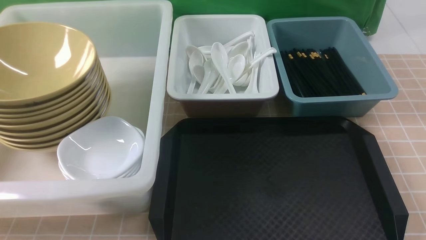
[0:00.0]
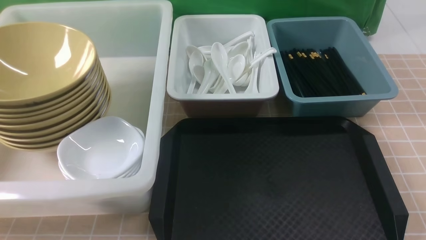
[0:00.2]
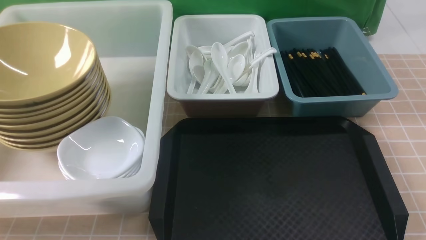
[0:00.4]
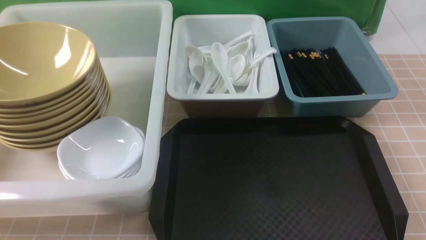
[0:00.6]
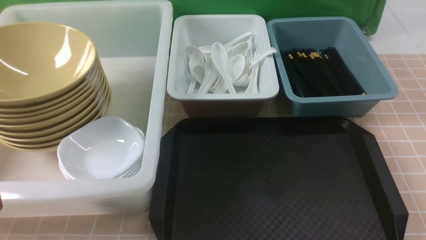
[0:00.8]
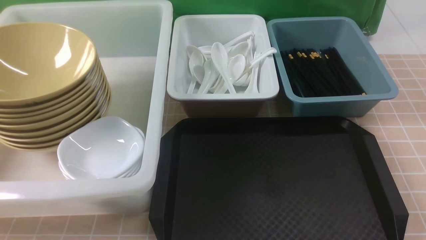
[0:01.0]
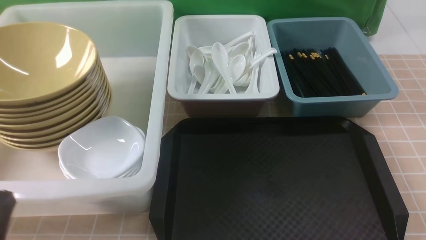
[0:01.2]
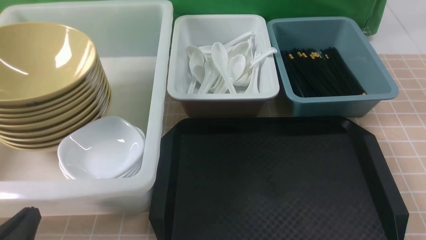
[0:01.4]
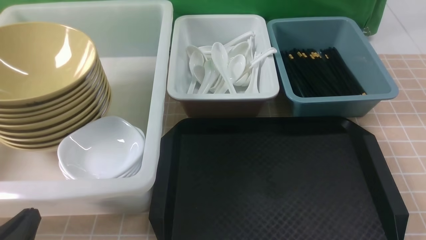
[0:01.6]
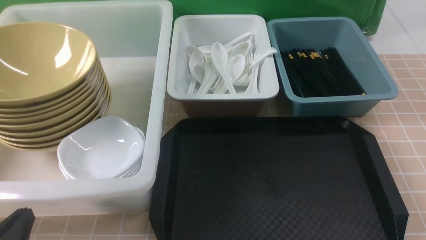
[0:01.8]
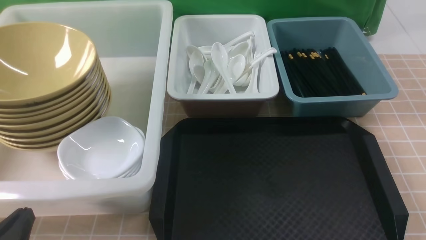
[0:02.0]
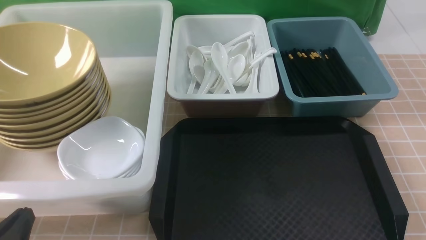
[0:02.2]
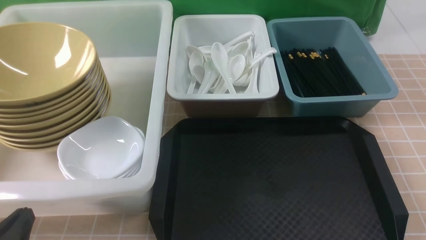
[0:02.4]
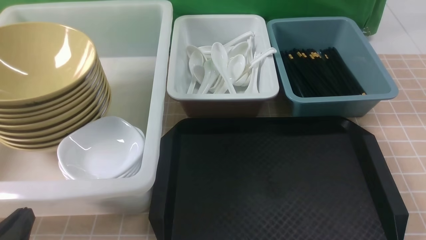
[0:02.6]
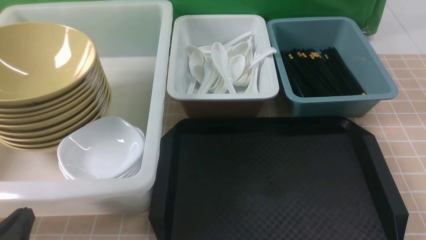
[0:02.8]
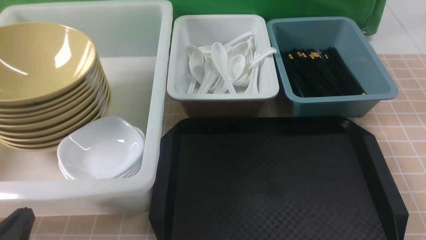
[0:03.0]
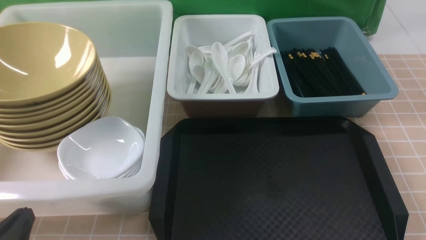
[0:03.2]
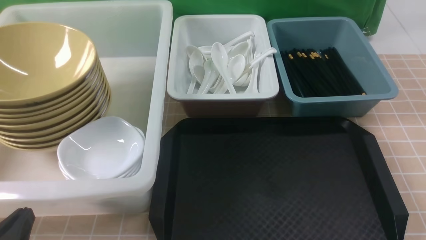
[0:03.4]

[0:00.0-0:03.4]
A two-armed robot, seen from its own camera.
Task of the whole recording: on brown table put chopsticks spoon bowls plates into blue grey white boxes.
0:00.0 to 0:01.6: The left gripper travels downward by roughly 10 cm.
0:01.6 to 0:03.4: Neither gripper changes place.
